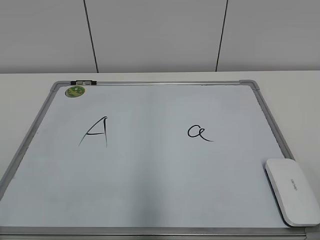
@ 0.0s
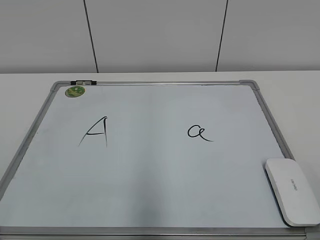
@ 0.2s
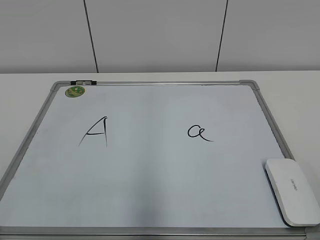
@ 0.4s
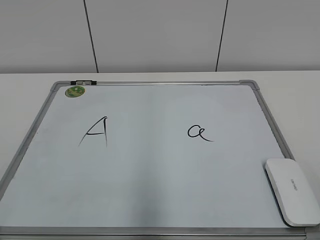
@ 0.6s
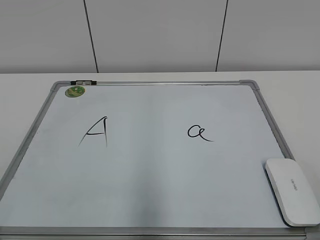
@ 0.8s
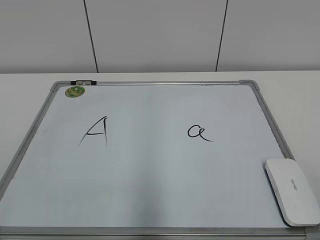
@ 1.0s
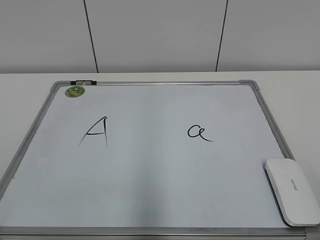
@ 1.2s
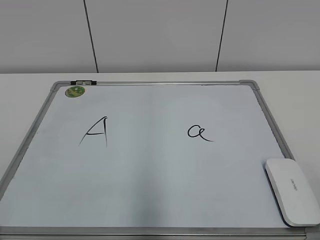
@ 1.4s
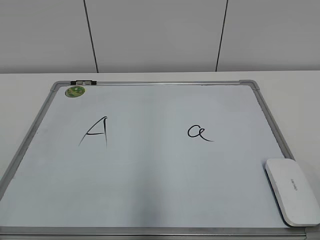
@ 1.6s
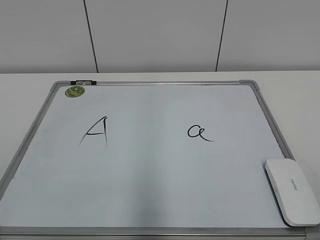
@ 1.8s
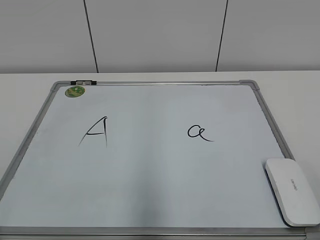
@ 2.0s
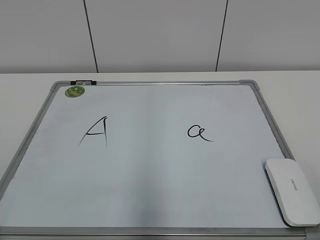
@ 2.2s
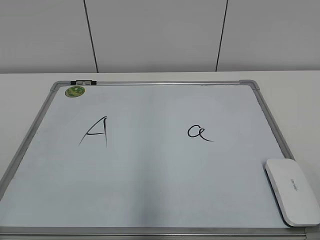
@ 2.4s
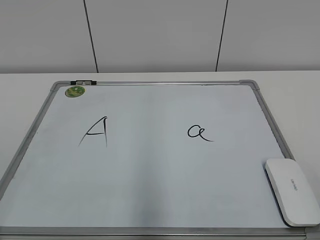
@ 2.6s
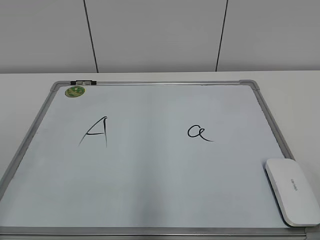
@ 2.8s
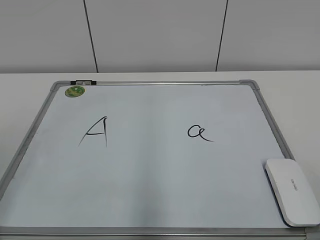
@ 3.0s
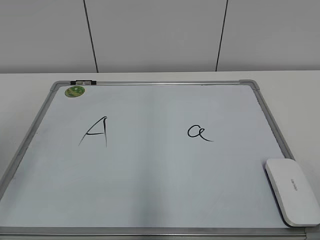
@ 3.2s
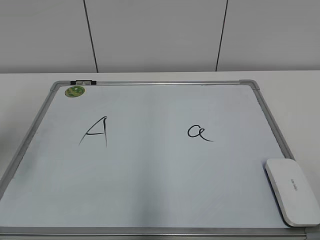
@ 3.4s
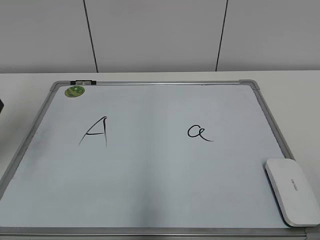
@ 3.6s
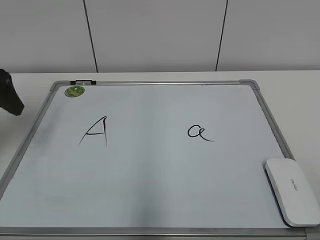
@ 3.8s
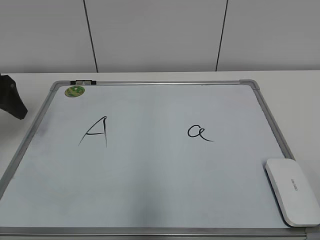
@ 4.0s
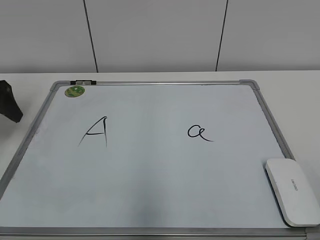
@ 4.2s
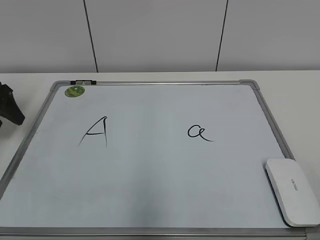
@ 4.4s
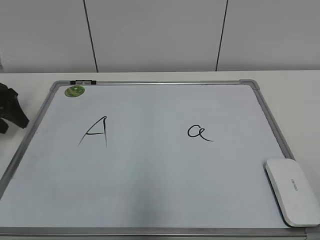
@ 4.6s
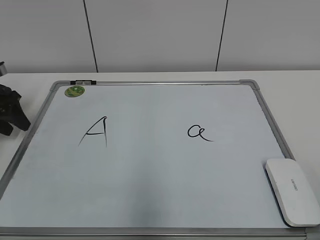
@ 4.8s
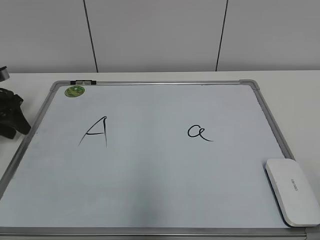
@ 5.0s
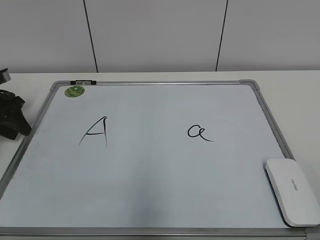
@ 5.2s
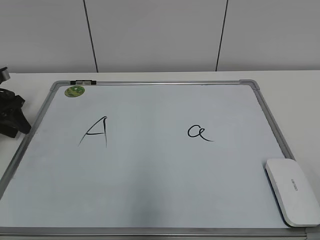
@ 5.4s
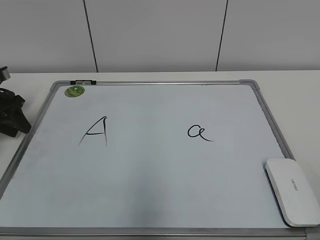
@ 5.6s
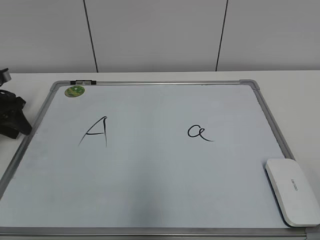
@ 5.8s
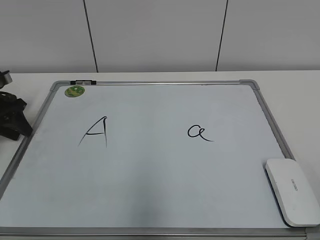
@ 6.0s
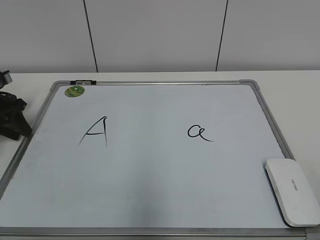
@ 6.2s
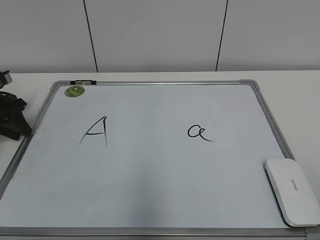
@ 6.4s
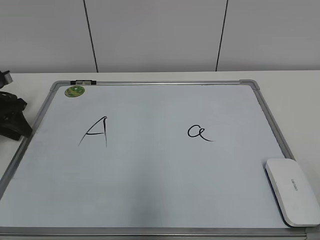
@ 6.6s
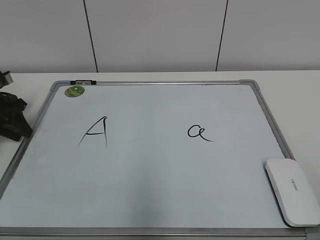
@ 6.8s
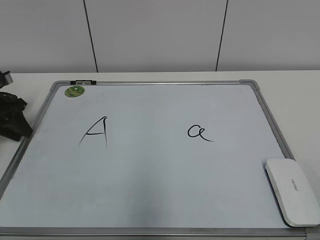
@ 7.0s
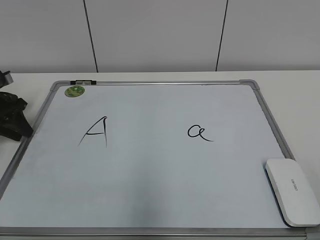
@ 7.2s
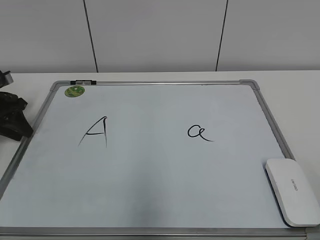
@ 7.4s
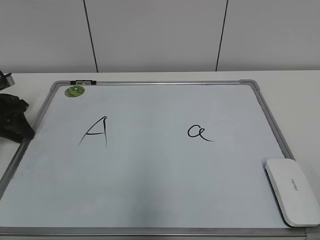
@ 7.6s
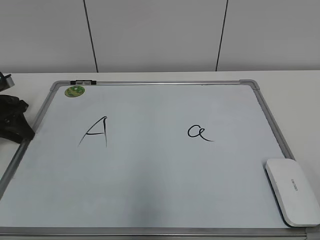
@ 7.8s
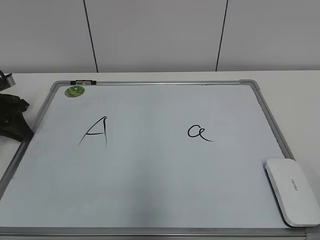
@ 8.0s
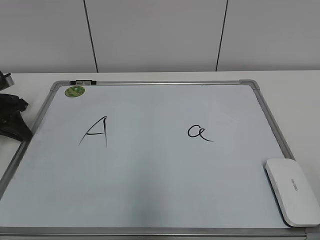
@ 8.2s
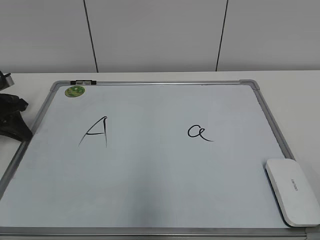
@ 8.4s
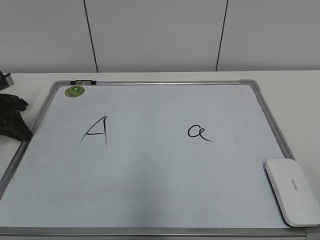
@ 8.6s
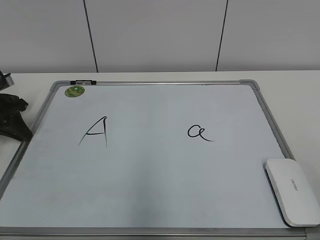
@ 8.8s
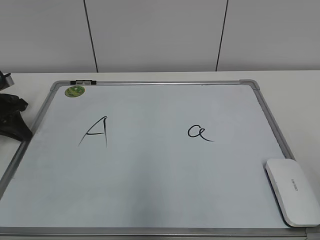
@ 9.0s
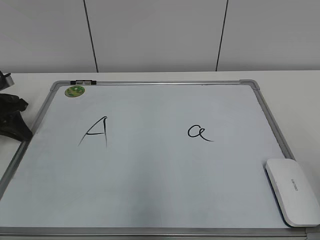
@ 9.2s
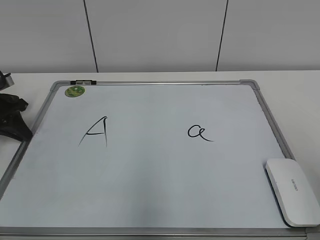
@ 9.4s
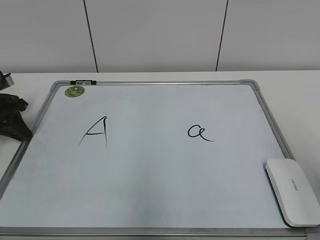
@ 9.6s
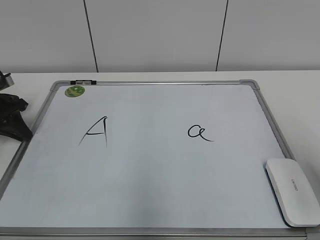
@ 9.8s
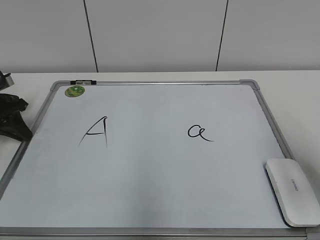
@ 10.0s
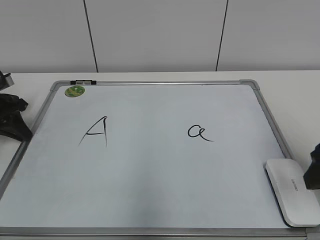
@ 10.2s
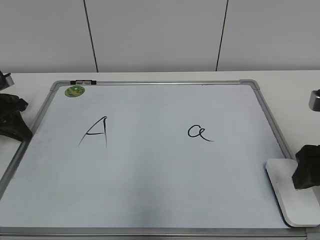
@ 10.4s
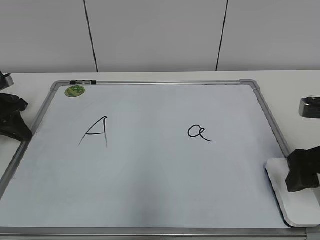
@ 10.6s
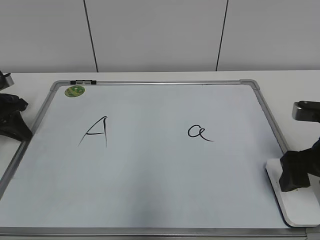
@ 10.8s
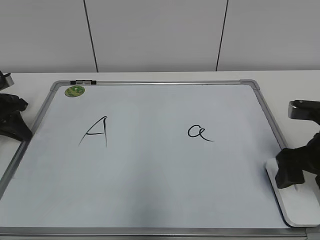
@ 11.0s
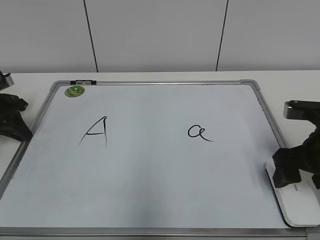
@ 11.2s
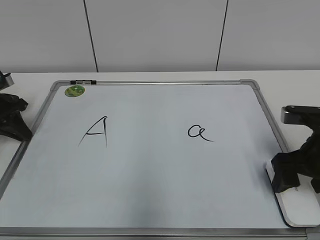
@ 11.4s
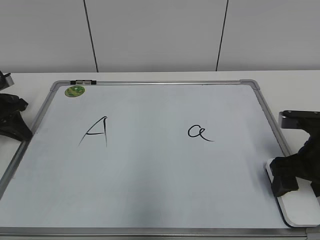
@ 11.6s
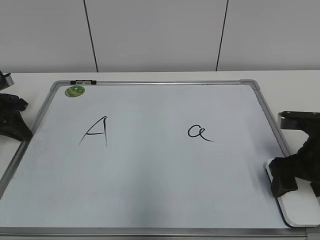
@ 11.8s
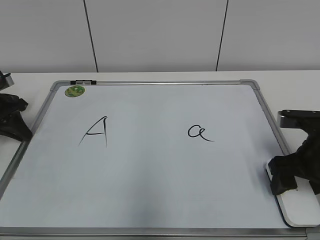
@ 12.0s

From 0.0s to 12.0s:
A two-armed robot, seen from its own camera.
Task of the whole recording: pick up the eraser on the blackboard and erase the letter "a".
From 3.0s to 4.4s: The left gripper travels forward and downward by about 30 cm.
From 4.4s to 6.0s: The left gripper is displaced downward by roughly 5 cm, and closes its fingers.
From 6.0s to 7.6s: Both grippers stay about where they are.
From 9.0s to 10.4s: The right gripper is displaced forward and downward by about 20 cm.
From 10.4s to 12.0s: The right gripper is displaced downward by some 5 cm, and opens.

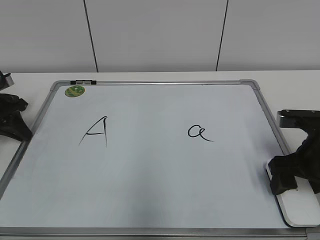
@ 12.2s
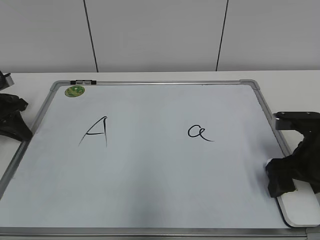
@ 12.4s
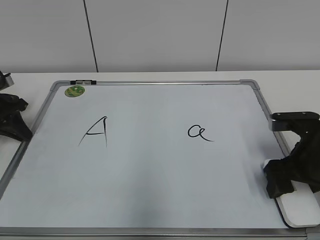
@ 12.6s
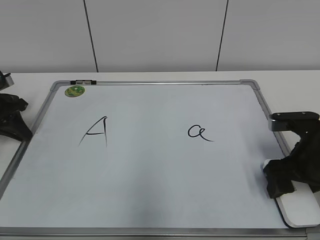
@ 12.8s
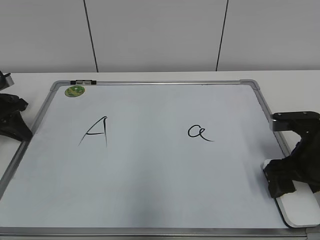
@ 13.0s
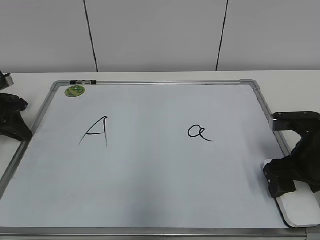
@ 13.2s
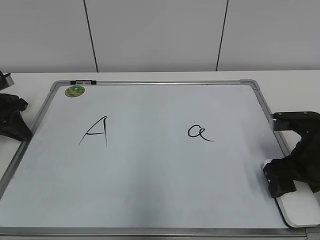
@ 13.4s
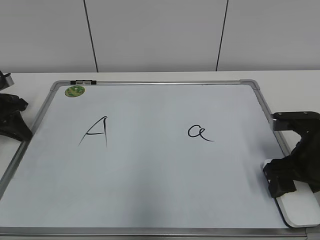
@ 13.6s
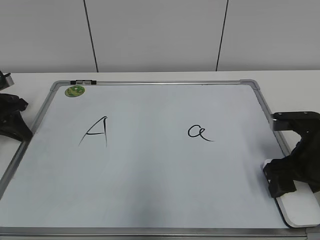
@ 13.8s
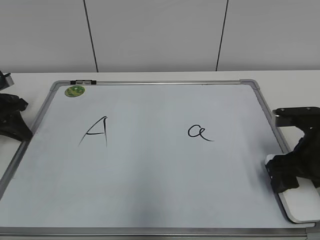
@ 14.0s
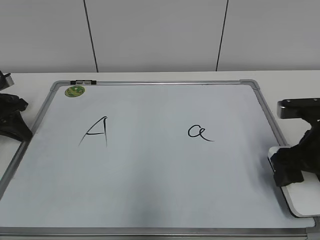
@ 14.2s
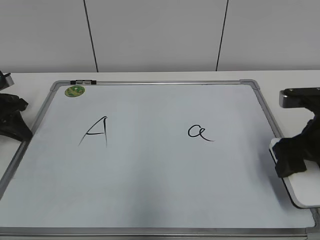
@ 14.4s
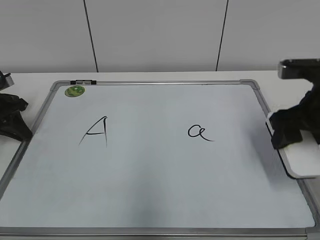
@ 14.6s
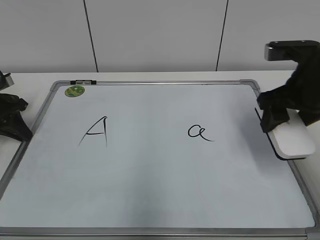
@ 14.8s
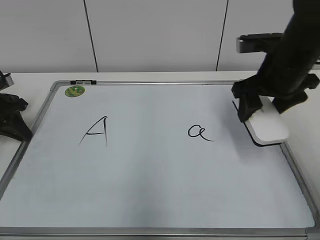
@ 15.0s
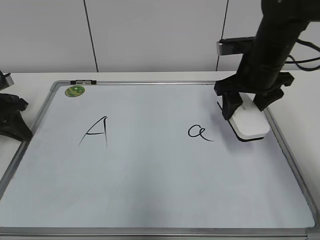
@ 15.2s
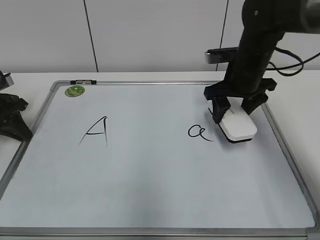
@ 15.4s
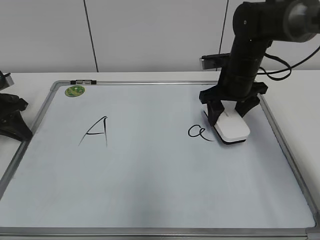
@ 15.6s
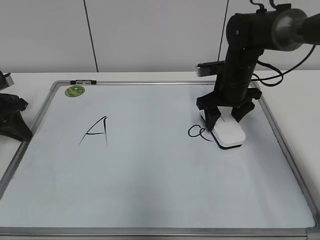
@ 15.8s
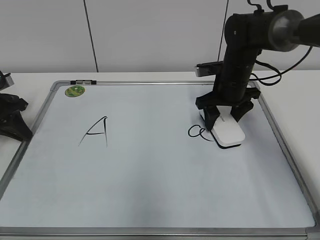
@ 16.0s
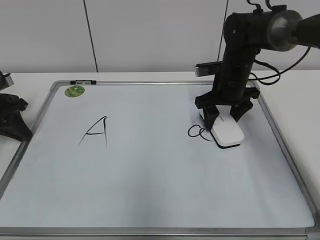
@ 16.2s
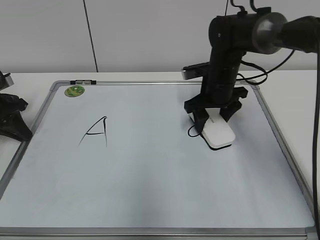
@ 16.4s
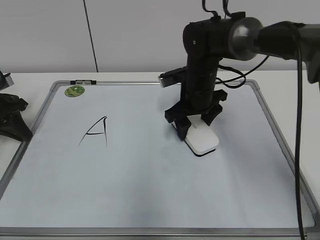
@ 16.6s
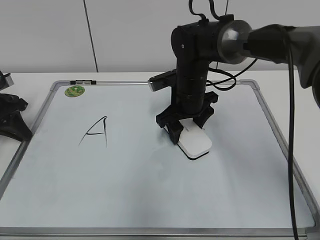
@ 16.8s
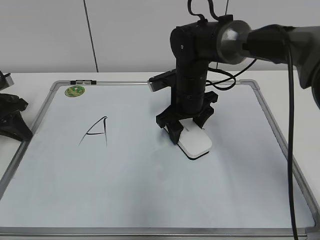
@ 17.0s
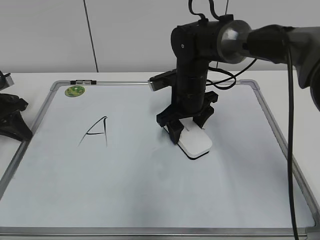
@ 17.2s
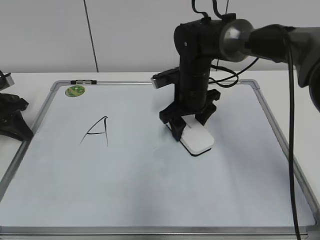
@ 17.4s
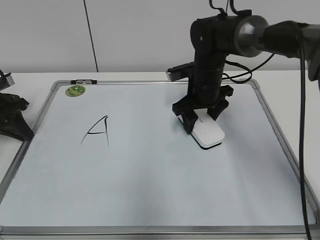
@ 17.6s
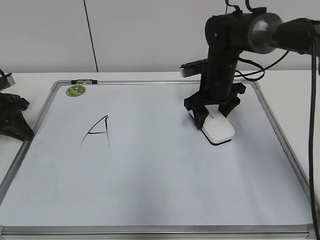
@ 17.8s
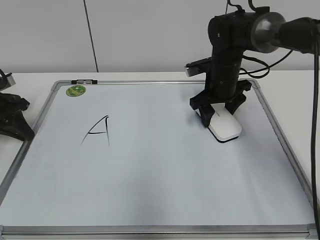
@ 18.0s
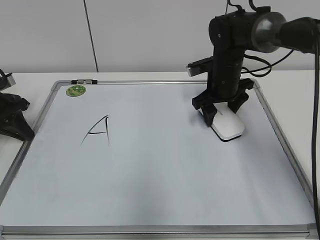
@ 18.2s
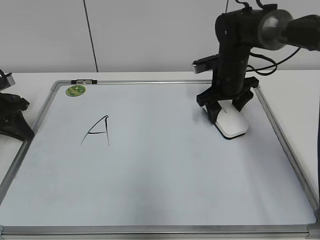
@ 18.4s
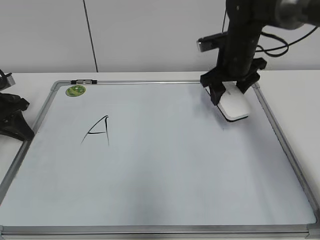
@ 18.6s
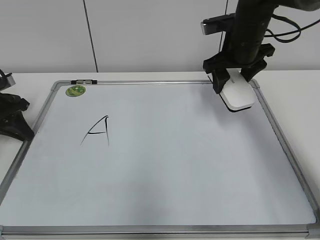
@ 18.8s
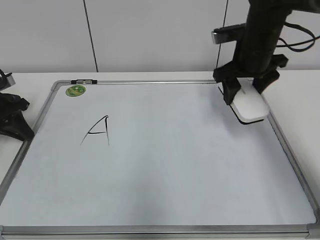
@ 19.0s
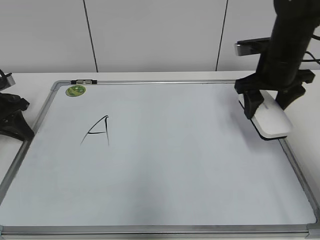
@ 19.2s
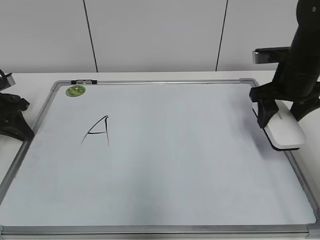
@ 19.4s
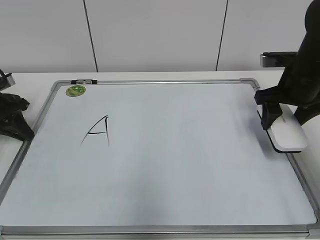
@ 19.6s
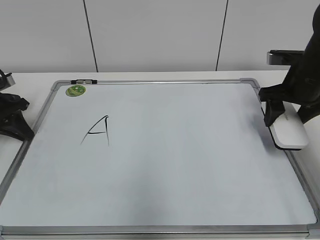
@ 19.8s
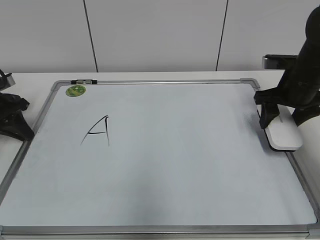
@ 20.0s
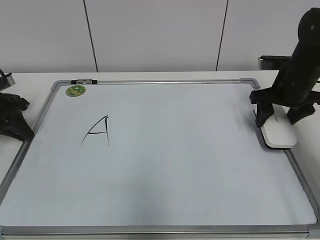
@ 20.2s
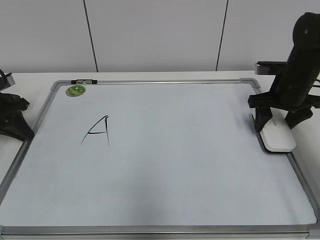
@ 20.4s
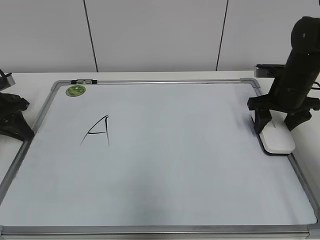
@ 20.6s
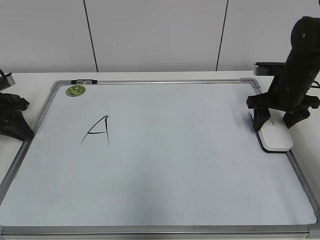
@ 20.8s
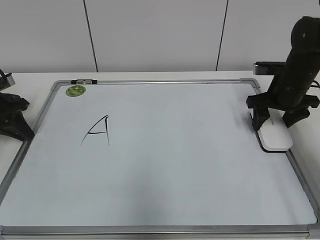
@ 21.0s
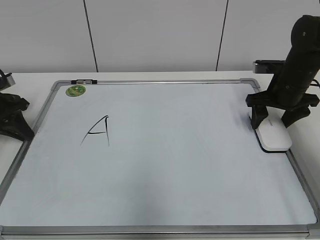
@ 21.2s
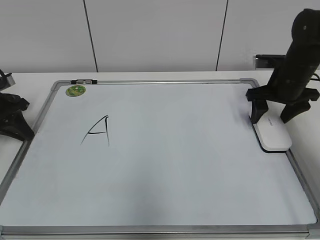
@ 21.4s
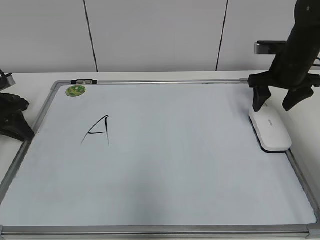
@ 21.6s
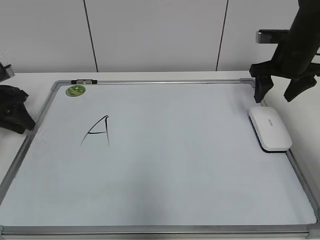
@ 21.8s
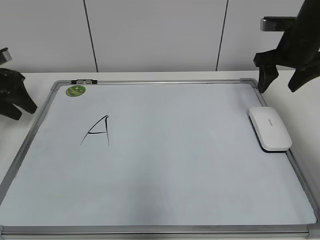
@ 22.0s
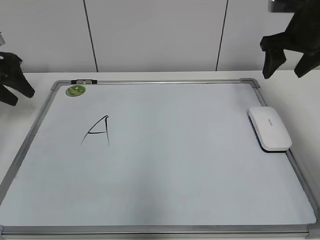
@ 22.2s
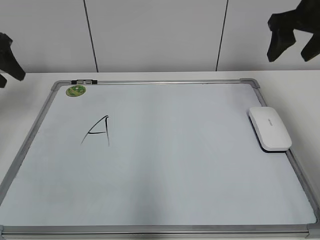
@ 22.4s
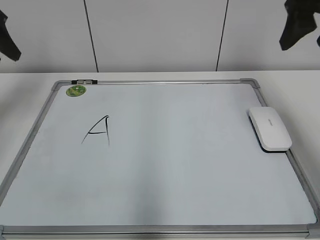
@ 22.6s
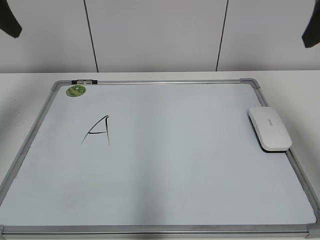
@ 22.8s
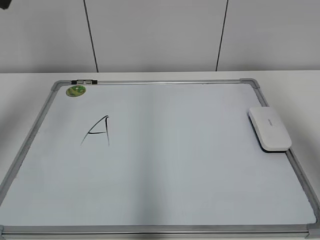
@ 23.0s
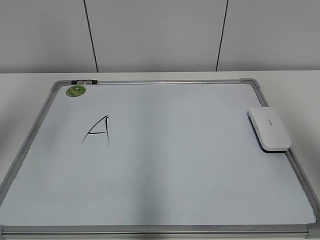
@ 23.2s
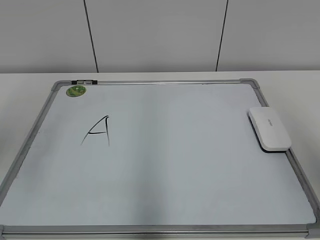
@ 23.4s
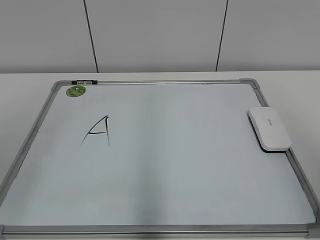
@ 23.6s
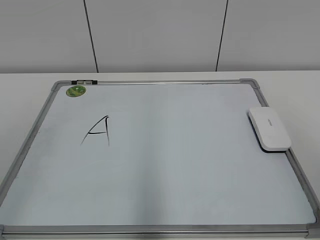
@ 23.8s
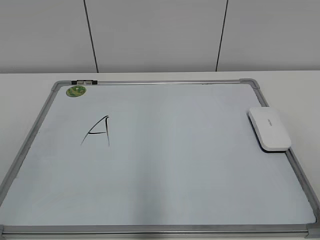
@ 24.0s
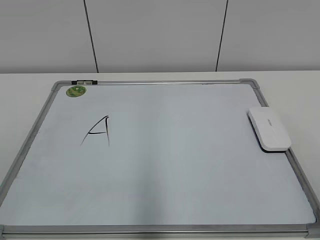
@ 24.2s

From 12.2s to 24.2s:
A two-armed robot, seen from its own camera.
Task of the whole recording: pick up the eraser on the blackboard and erase the letter "a".
Step, from 14.0s to 18.2s: Erase the letter a with your right hand.
Step, from 18.4s to 21.4s: Put down the eraser with your right hand.
From 12.2s to 13.8s: The right gripper closes its fingers.
From 13.8s to 15.2s: The right gripper is displaced forward, upward and to the left by roughly 15 cm.
From 15.2s to 16.6s: The right gripper heads to the left and downward, covering some 15 cm.
From 16.6s to 18.2s: The right gripper travels to the right by roughly 5 cm.
From 18.2s to 19.8s: The right gripper travels to the right and backward by approximately 15 cm.
From 19.8s to 21.2s: The right gripper moves approximately 5 cm, and opens up.
From 21.2s to 22.6s: The grippers both shift upward by about 20 cm. The left gripper opens its fingers.
From 22.6s to 24.2s: Both grippers move backward, approximately 35 cm.
